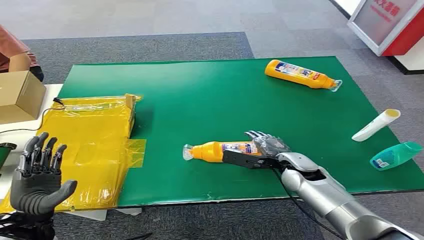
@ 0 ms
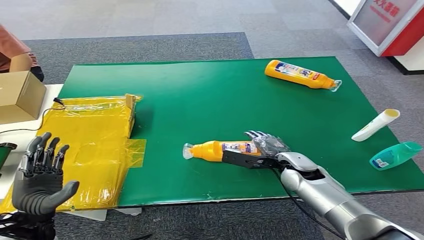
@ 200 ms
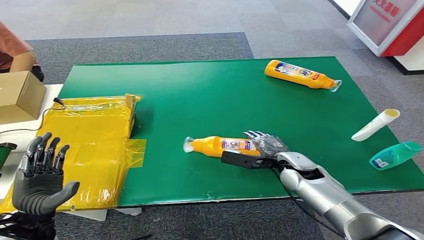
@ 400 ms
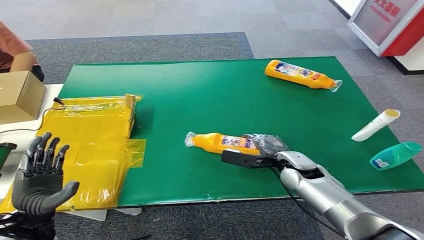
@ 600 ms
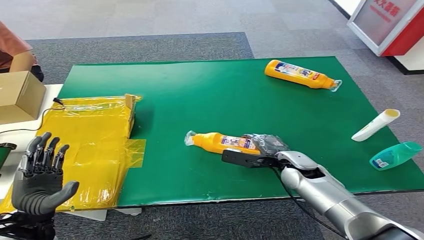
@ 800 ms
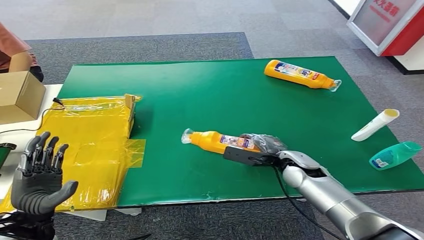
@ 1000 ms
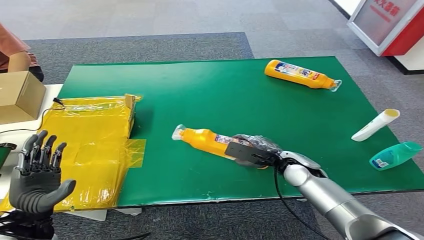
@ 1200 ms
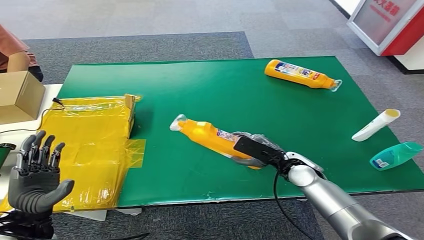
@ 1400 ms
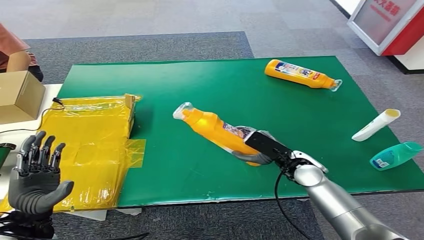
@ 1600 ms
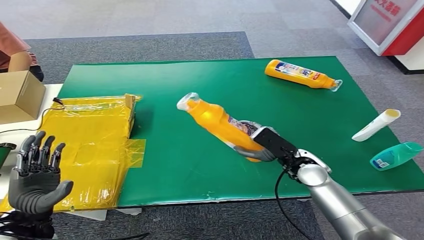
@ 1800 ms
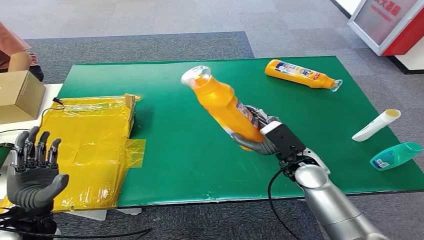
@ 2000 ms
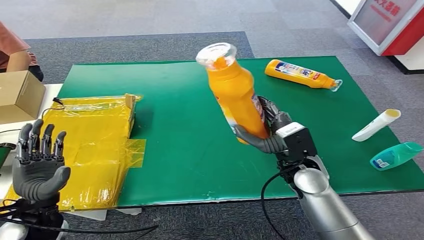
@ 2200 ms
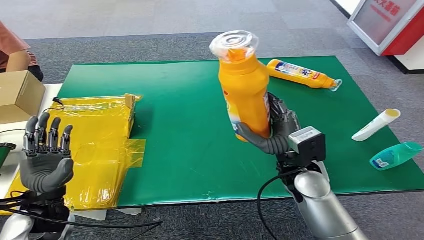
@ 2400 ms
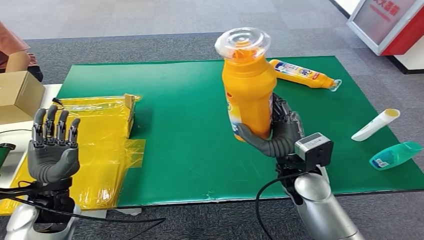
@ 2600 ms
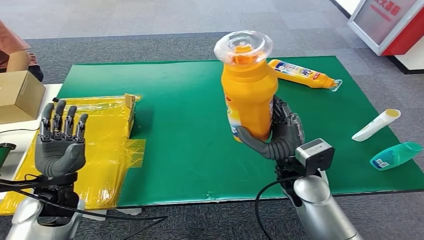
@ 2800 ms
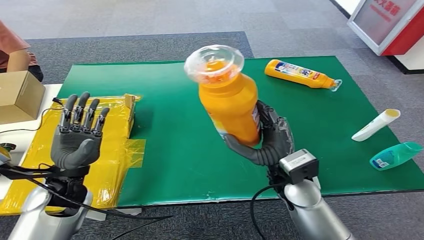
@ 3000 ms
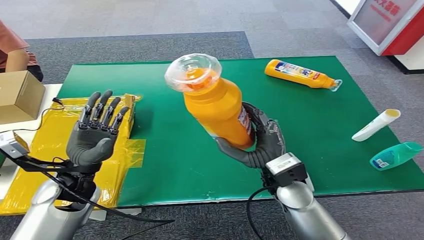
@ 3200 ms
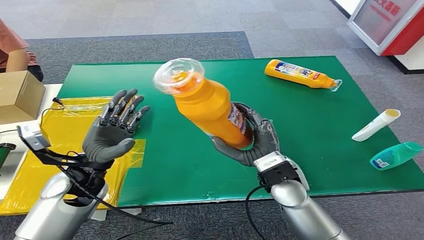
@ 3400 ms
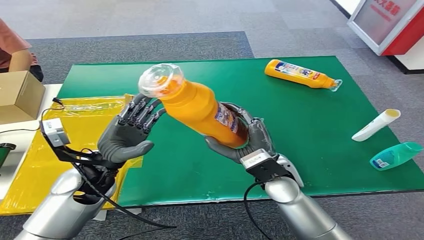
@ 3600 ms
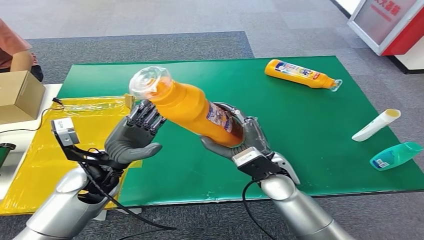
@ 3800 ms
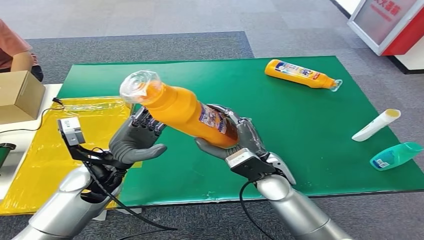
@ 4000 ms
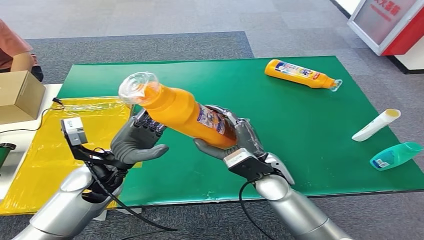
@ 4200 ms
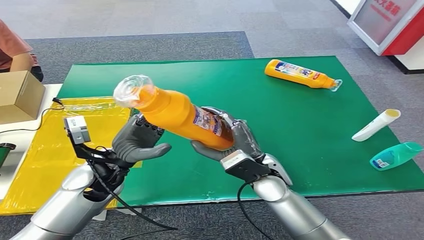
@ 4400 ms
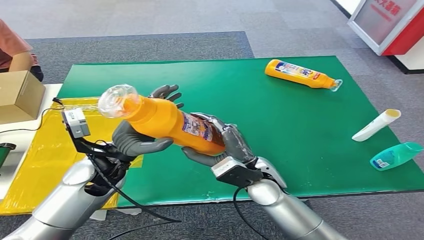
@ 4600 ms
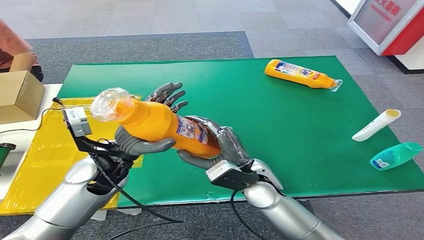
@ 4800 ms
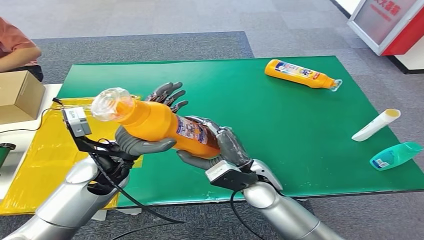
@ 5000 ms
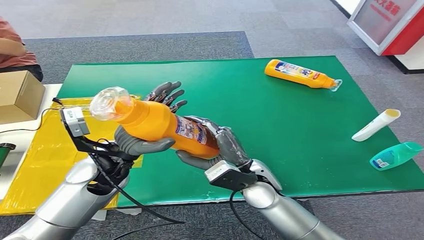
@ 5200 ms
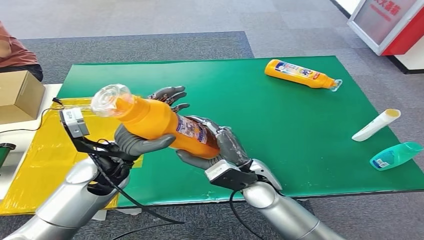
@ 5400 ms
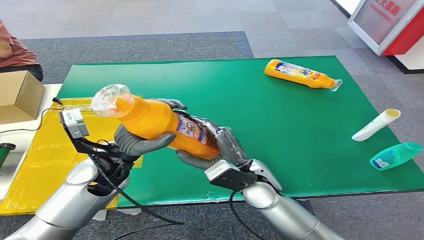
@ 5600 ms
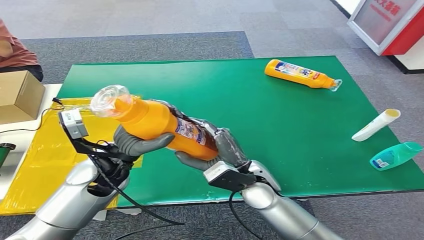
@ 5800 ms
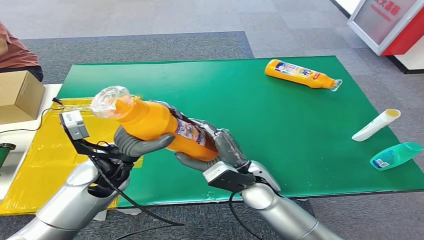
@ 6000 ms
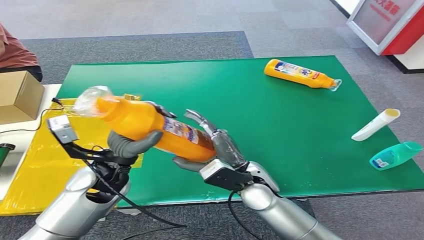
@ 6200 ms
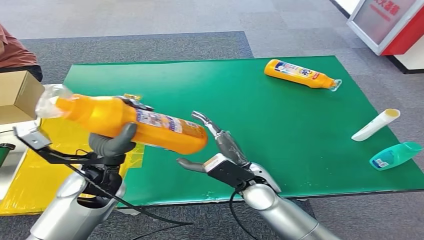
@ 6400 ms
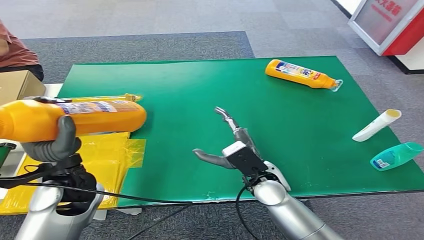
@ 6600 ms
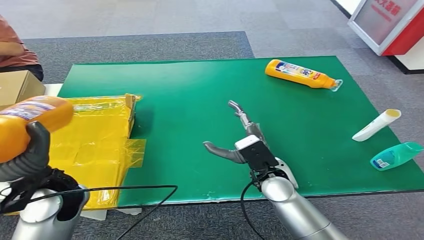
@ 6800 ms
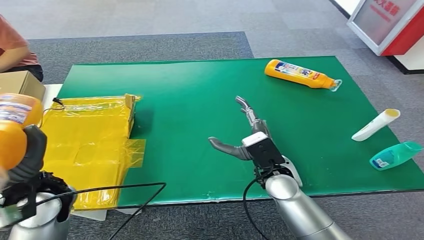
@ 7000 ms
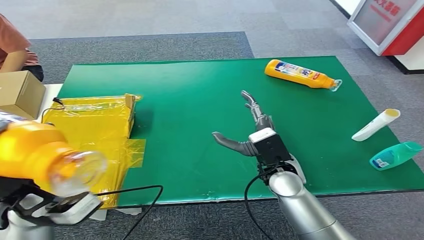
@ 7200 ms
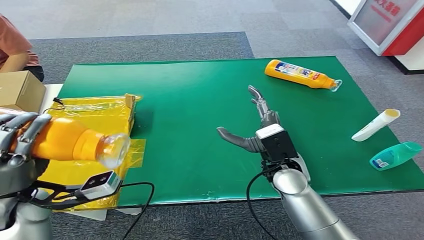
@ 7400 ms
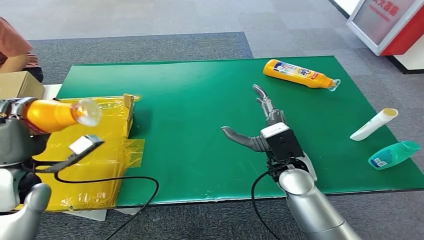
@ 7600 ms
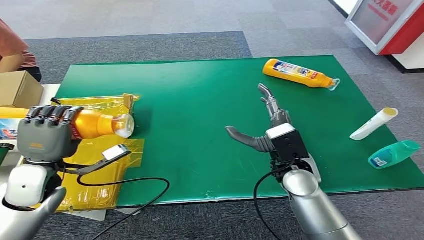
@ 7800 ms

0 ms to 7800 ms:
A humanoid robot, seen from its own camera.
Step, 0 ms to 2600 ms: Pick up the bottle from the table.
Step, 3000 ms to 7800 ms: Turn the bottle to the front side.
4600 ms to 6200 ms: The hands make only small movements.
